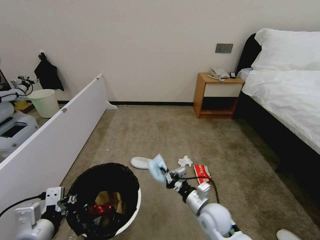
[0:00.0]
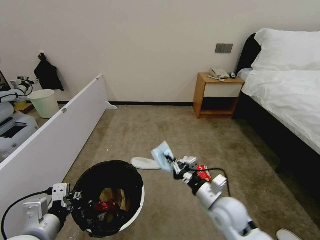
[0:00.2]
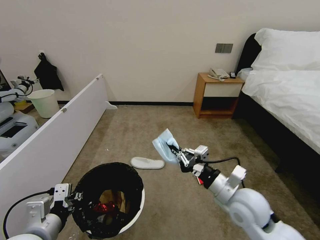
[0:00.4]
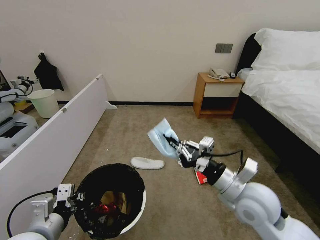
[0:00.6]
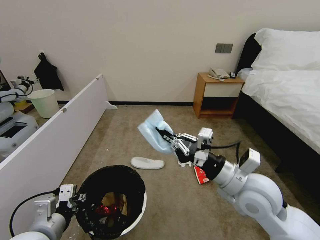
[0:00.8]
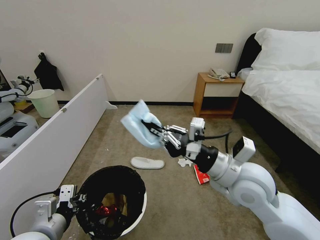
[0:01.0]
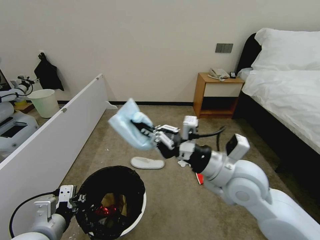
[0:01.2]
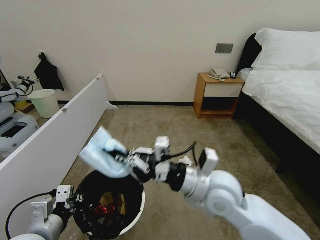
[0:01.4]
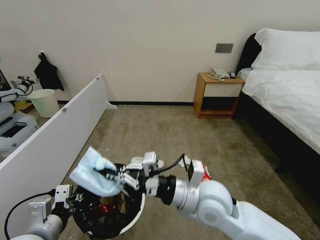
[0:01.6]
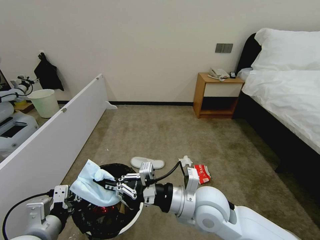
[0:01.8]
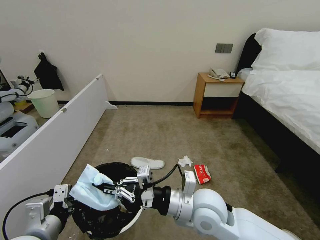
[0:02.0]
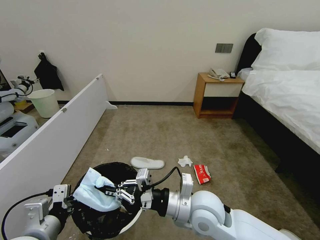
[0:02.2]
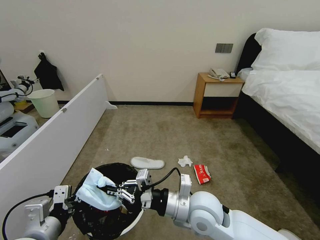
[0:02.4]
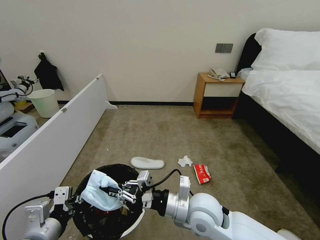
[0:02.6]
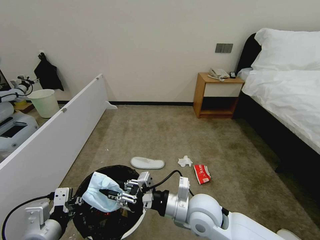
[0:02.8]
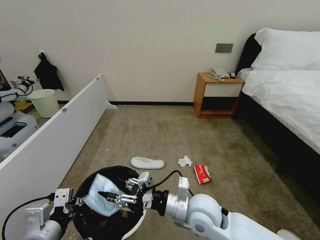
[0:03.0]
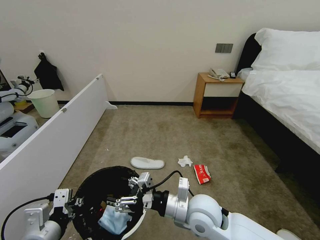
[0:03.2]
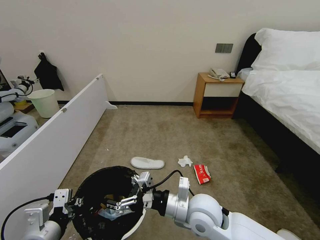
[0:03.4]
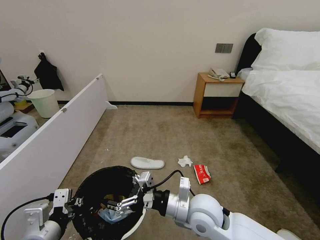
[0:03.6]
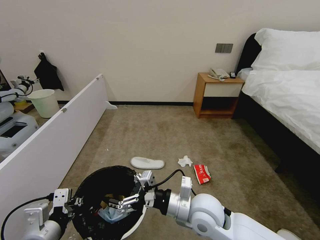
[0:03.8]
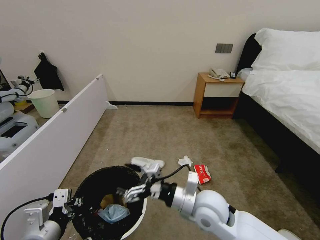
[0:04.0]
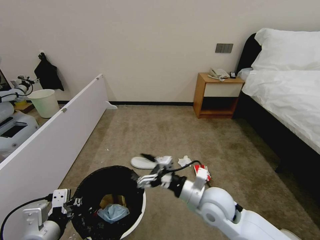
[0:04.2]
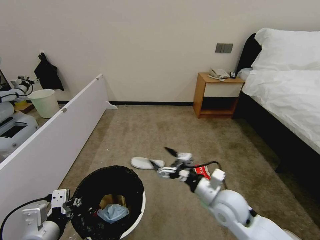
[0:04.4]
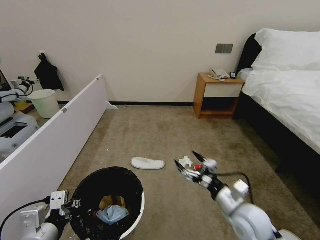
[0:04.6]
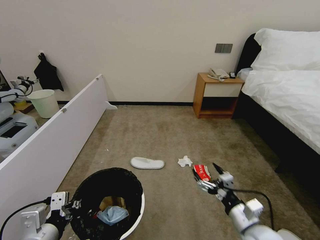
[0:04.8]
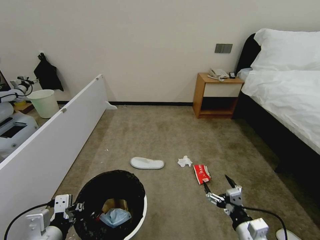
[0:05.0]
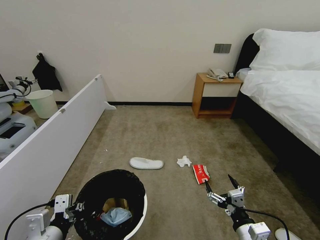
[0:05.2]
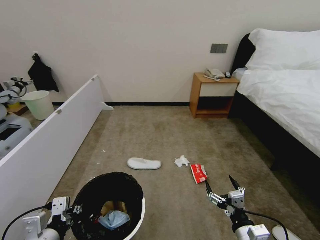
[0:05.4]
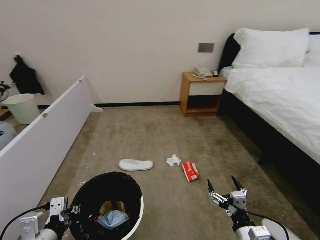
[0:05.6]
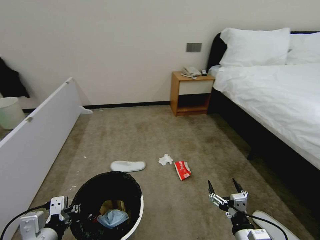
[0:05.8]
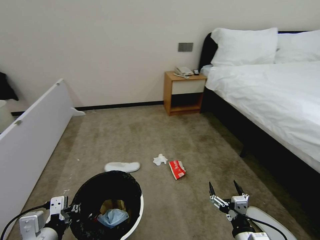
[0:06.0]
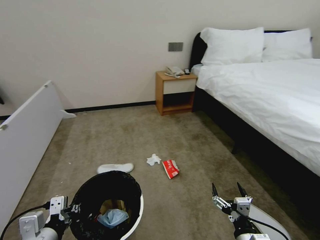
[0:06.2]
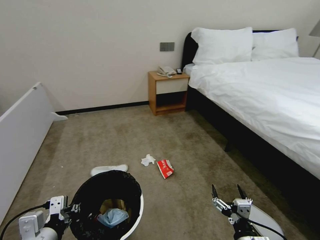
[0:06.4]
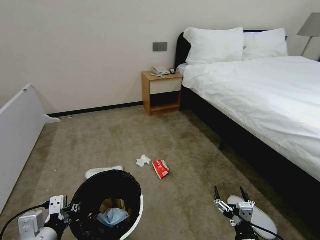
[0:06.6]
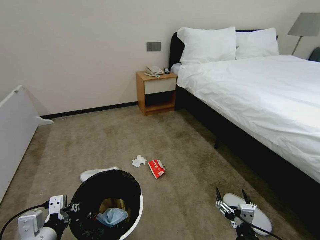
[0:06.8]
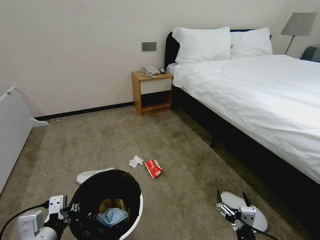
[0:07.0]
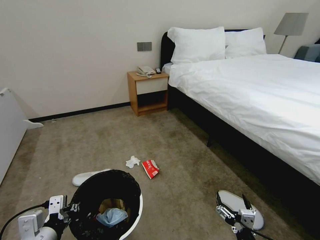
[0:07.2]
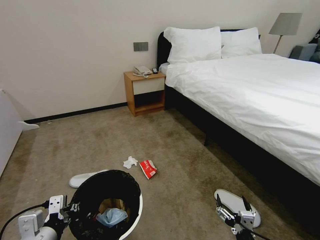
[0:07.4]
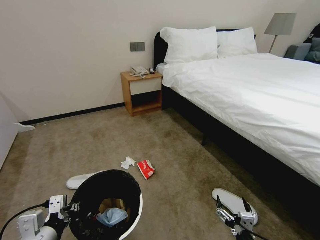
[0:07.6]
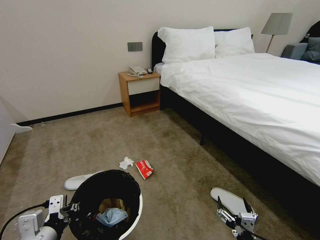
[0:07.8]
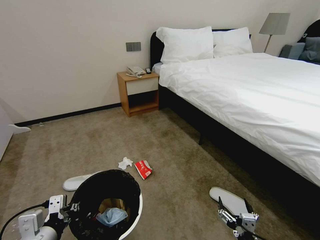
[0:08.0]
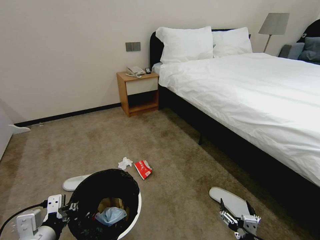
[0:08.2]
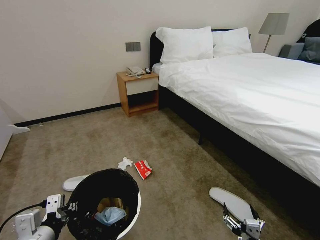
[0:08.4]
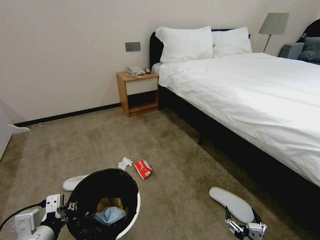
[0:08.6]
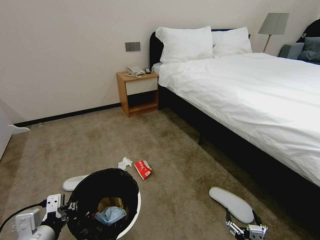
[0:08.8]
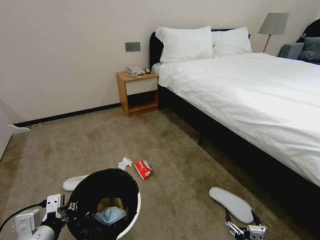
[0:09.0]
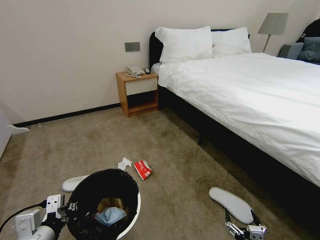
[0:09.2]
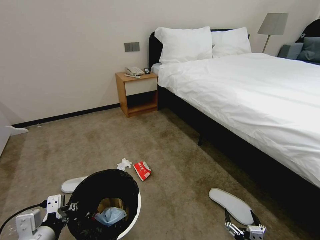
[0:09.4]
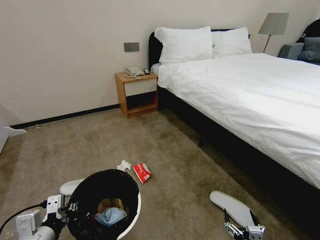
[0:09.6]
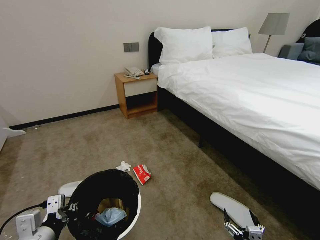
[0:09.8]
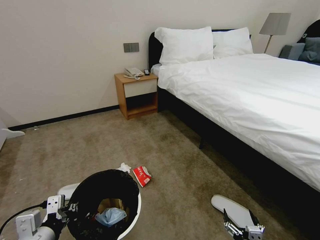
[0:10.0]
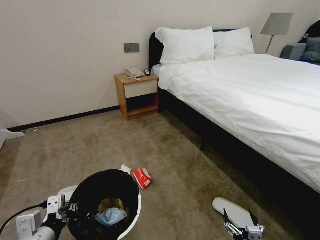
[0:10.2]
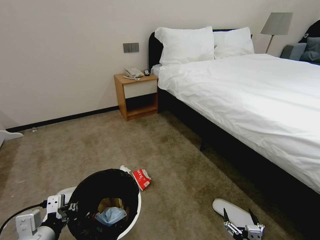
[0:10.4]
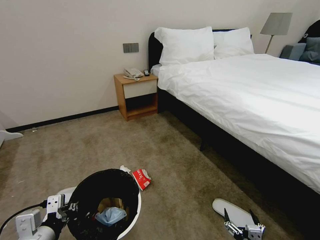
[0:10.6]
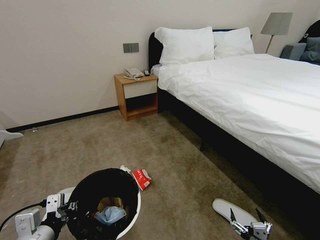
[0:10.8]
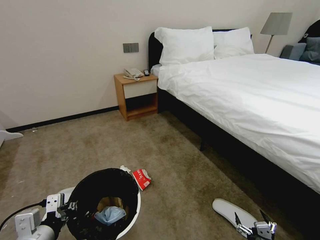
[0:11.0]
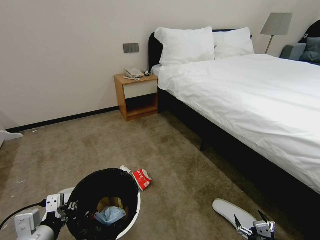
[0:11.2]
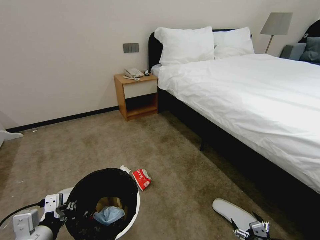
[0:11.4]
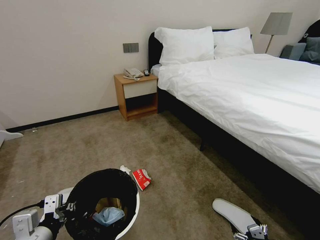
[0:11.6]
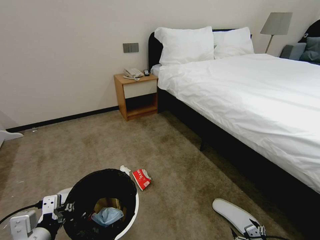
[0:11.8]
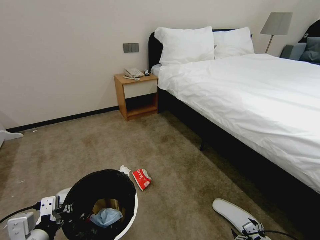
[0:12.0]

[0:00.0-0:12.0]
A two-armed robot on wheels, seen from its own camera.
Task of the whole recording: Pick up the trash bin, then pick up the garbage from the floor and place it into the trash bin.
0:00.0 to 0:01.6: The right gripper goes roughly 20 cm upward.
0:01.6 to 0:03.0: The right gripper shifts approximately 5 cm downward, and opens.
0:03.0 to 0:04.4: The right gripper travels to the right by some 10 cm, and opens its fingers.
0:04.4 to 0:06.0: The right gripper moves backward and downward, about 15 cm.
0:07.6 to 0:09.0: The right gripper changes place by roughly 5 cm.
0:09.0 to 0:10.4: Both grippers stay put.
0:10.4 to 0:12.0: The right gripper heads to the right and forward, covering about 15 cm.

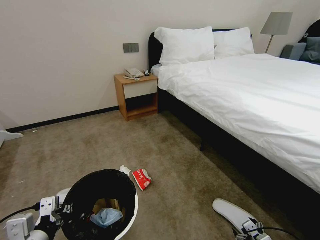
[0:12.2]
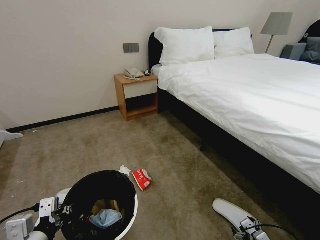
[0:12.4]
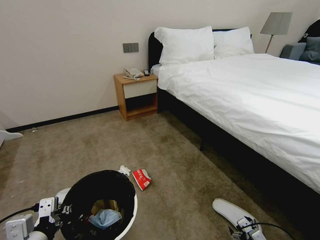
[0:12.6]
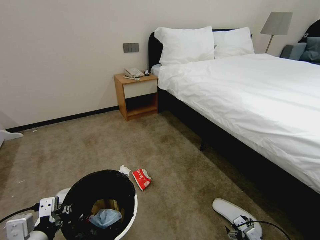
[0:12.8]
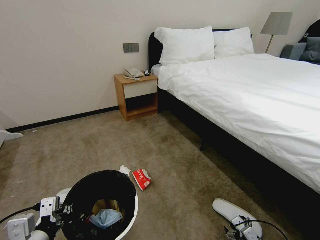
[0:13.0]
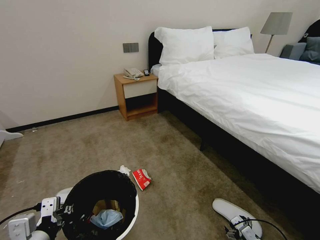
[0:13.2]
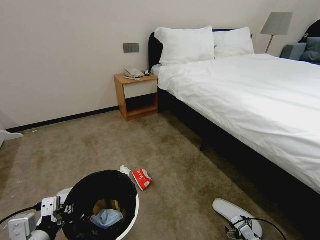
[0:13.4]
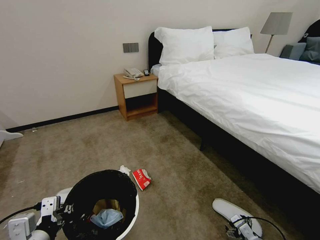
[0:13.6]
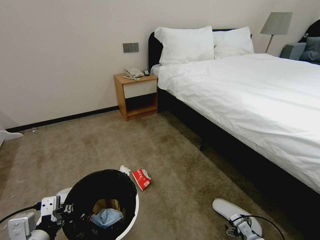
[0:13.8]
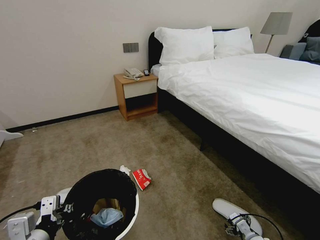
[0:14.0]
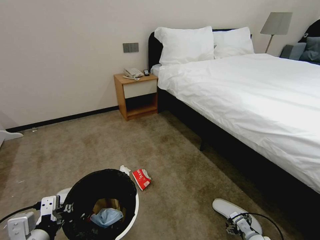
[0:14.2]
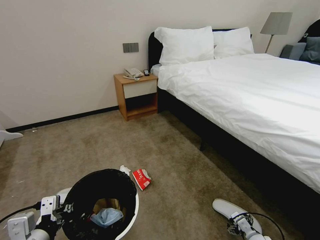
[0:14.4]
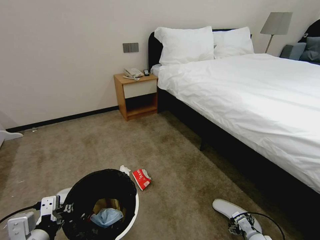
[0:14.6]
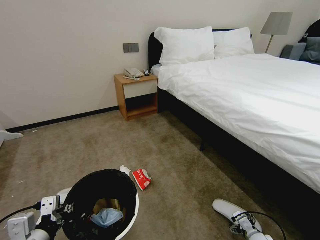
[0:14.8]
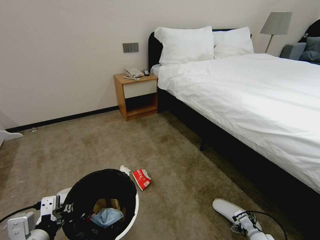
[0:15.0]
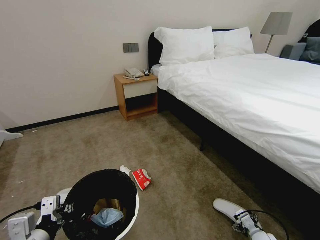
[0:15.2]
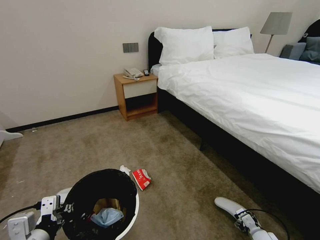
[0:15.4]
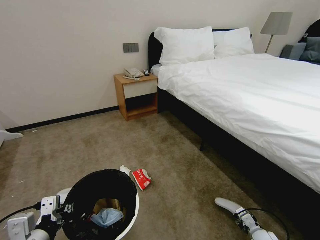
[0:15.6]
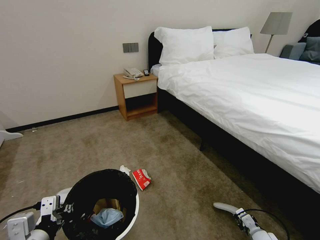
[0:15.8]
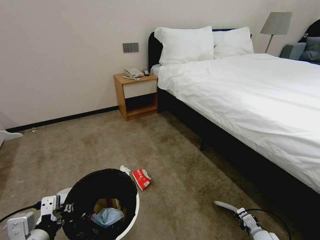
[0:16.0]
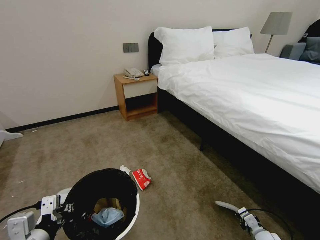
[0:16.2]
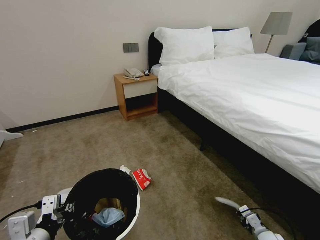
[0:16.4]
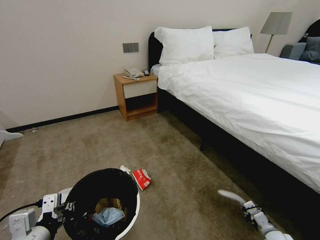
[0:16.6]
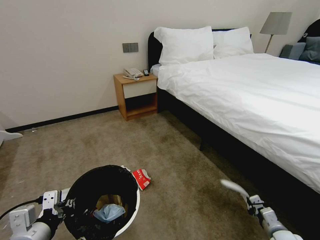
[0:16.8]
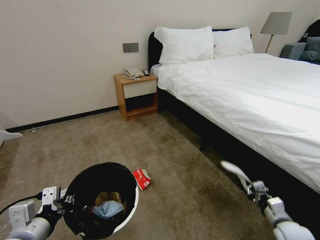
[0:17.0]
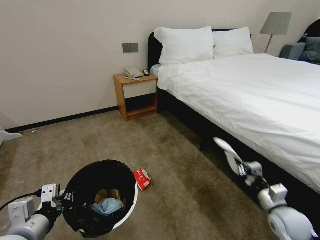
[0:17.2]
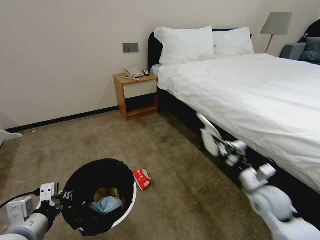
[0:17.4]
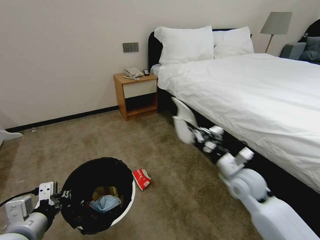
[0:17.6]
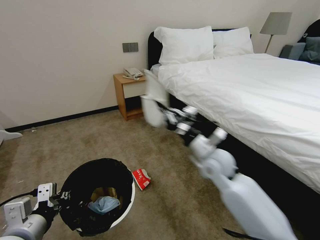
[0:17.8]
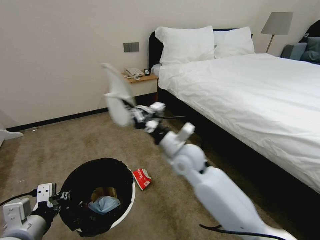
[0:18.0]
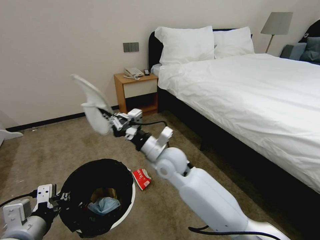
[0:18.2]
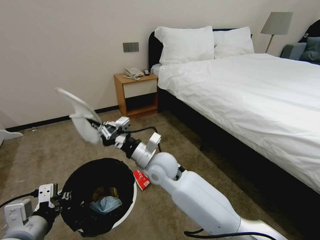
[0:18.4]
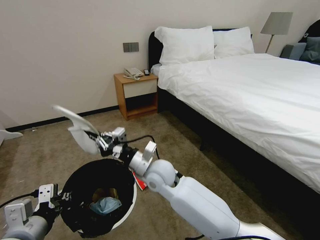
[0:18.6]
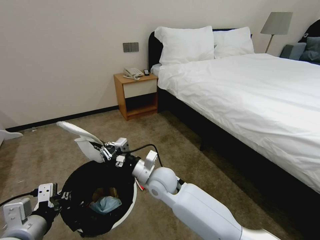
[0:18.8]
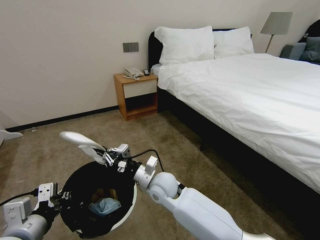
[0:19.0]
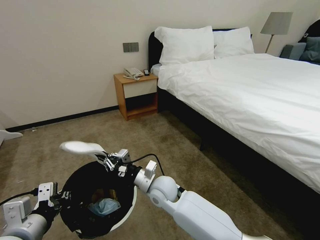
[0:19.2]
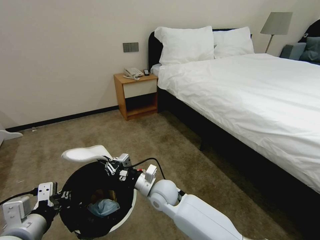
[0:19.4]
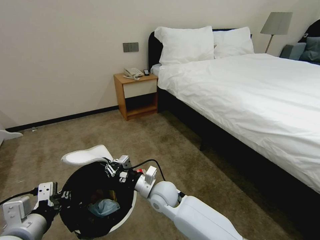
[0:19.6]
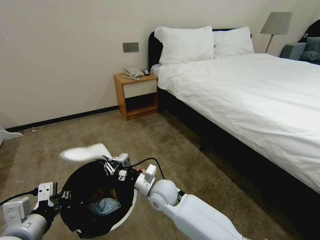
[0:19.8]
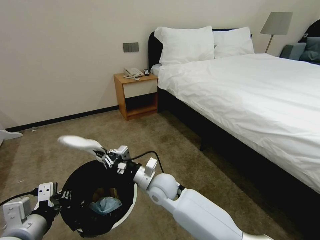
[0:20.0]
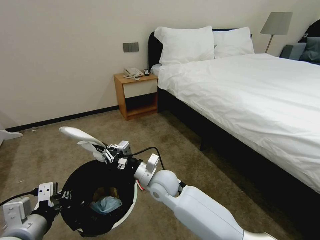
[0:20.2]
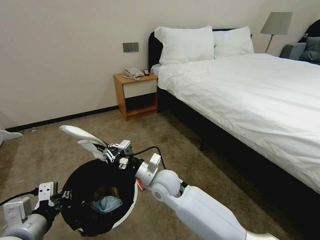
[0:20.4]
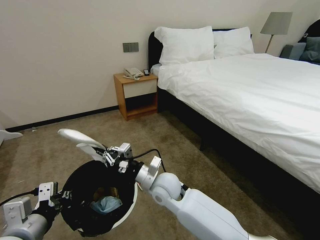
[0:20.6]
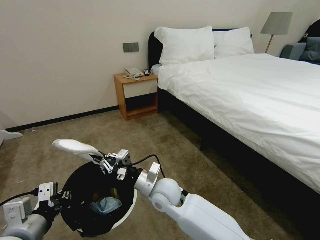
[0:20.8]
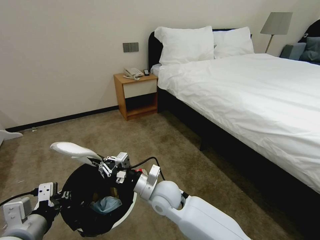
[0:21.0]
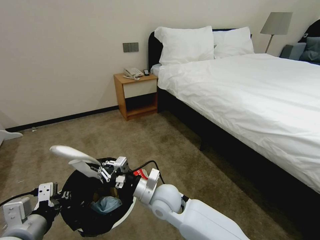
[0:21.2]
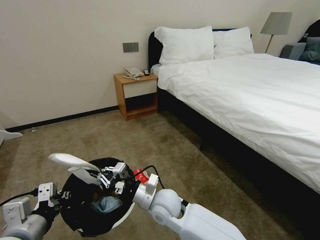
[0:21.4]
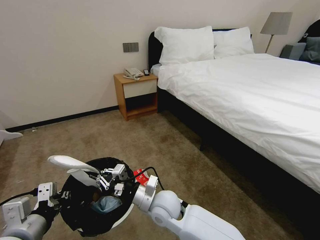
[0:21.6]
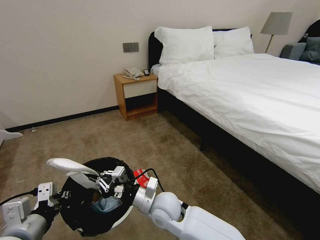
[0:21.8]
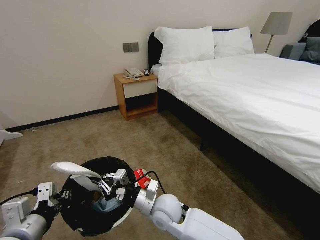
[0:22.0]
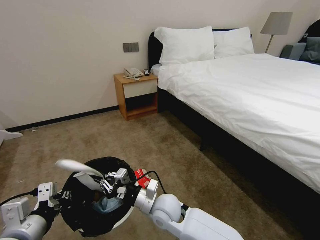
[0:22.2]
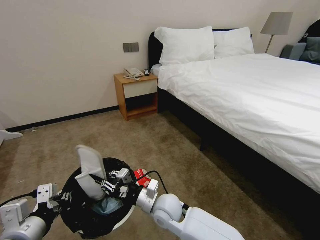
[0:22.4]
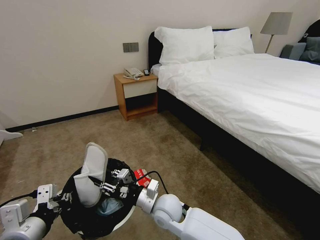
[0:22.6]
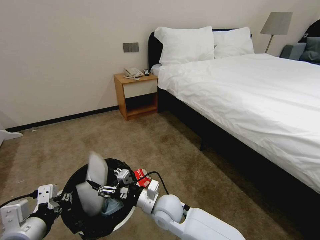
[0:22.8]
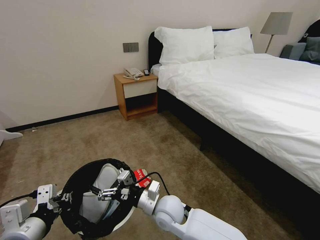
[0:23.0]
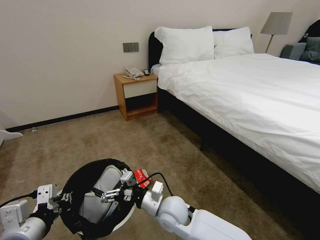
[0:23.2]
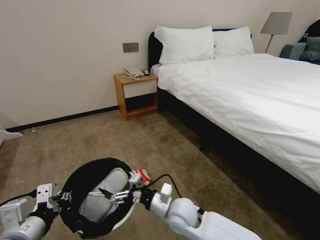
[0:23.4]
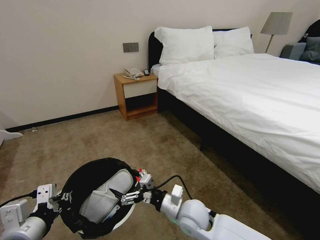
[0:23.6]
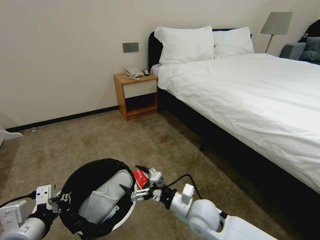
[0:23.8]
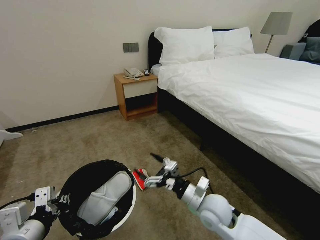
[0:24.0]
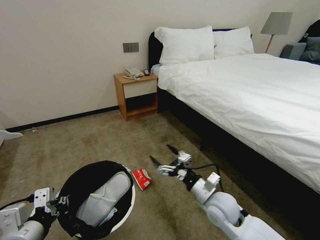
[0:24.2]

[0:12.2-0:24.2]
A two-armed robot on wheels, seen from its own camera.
Task of the whole recording: Pick up the trash bin, then pick up the garbage from the floor and place it into the trash bin.
0:12.2 to 0:13.8: The right gripper moves forward, roughly 5 cm.
0:13.8 to 0:15.2: The grippers stay close to where they were, moving slightly.
0:15.2 to 0:16.6: The right gripper ends up approximately 5 cm from where it was, and closes up.
0:16.6 to 0:18.2: The right gripper heads to the left and upward, covering approximately 50 cm.
0:18.2 to 0:19.8: The right gripper is displaced downward by about 15 cm.
0:19.8 to 0:21.2: There are only small adjustments of the grippers.
0:21.2 to 0:22.6: The right gripper opens its fingers.
0:22.6 to 0:24.2: The right gripper is displaced to the right by about 15 cm, and opens up.
